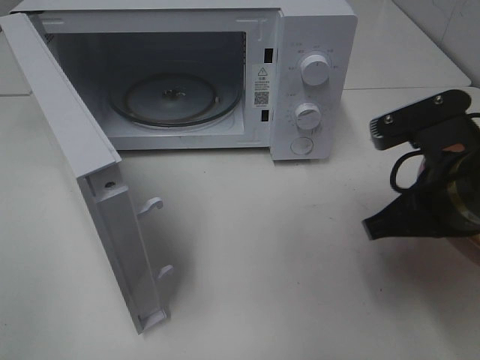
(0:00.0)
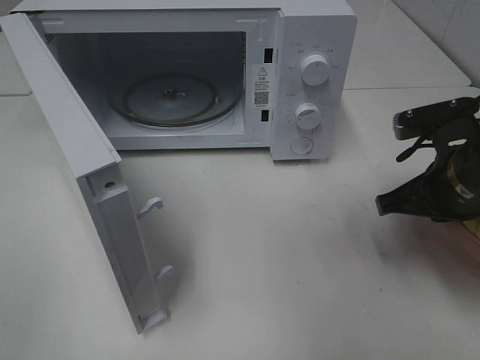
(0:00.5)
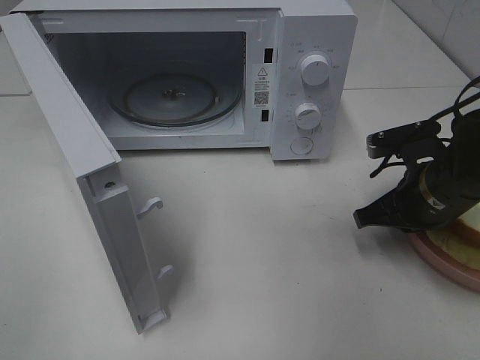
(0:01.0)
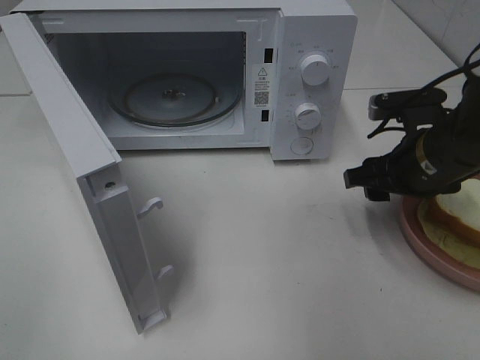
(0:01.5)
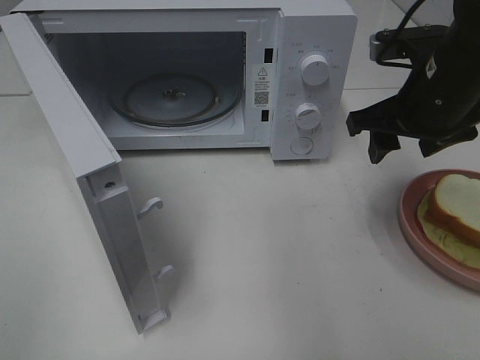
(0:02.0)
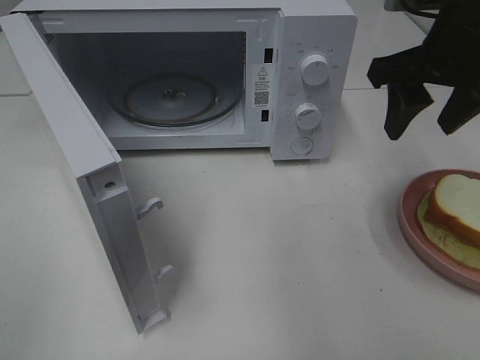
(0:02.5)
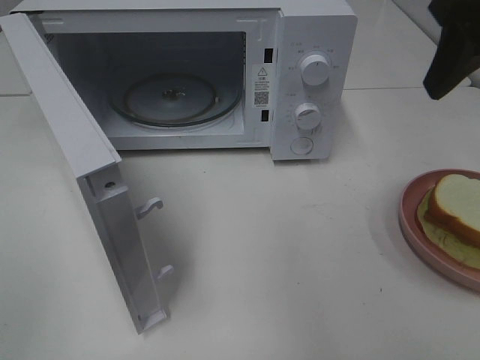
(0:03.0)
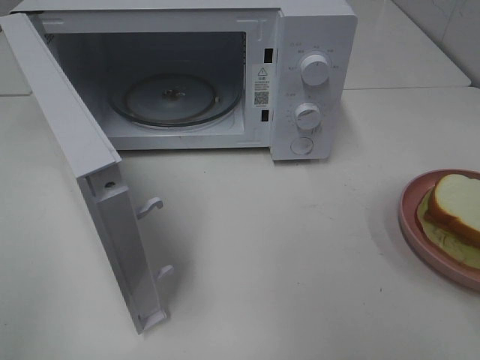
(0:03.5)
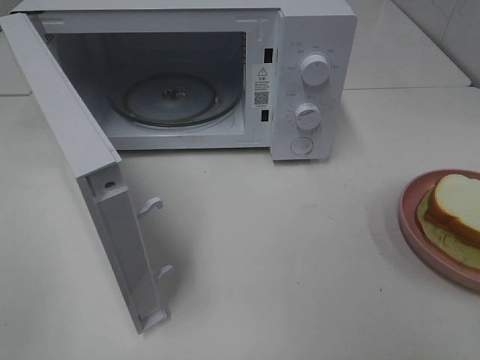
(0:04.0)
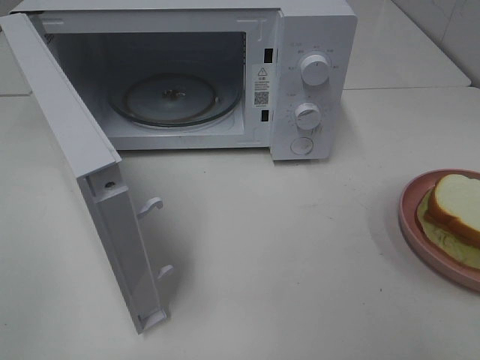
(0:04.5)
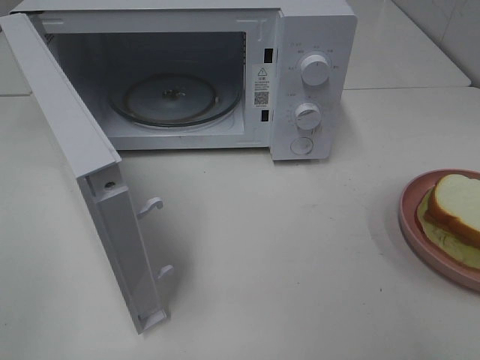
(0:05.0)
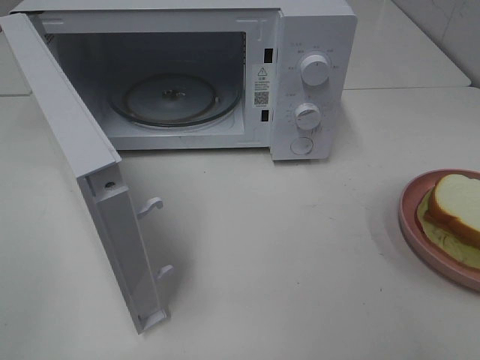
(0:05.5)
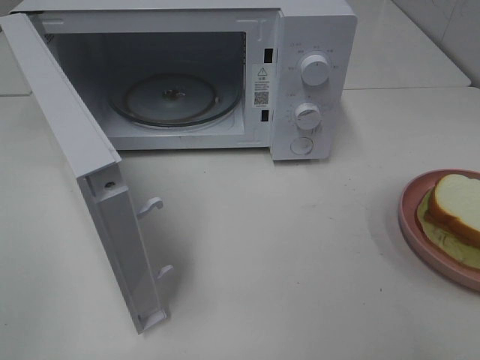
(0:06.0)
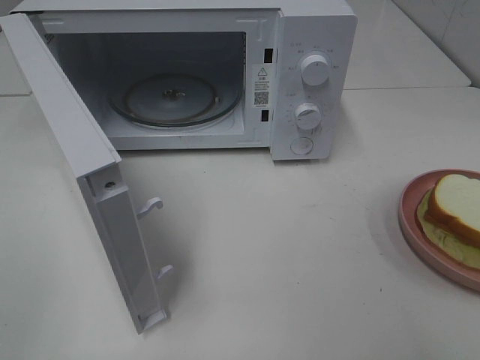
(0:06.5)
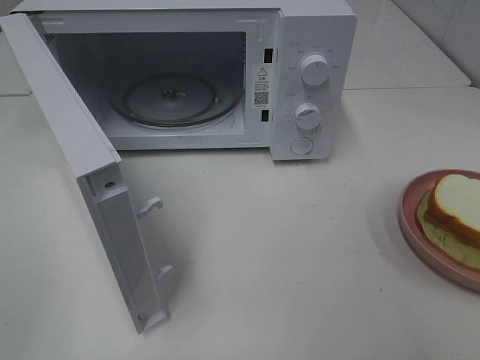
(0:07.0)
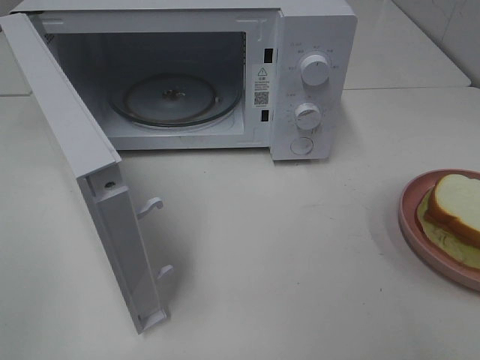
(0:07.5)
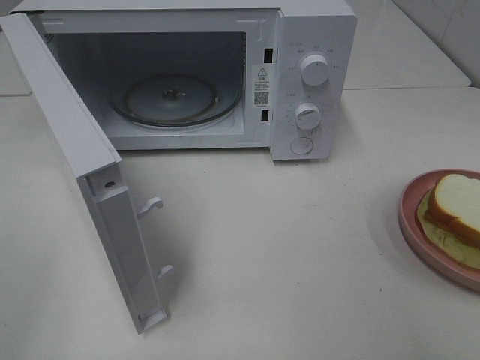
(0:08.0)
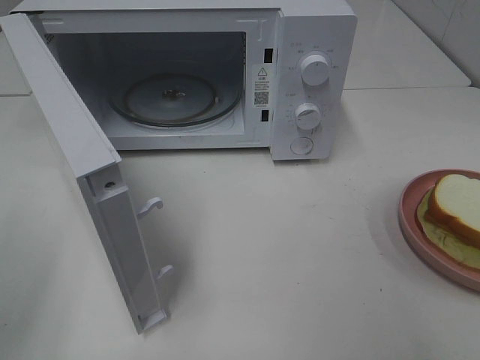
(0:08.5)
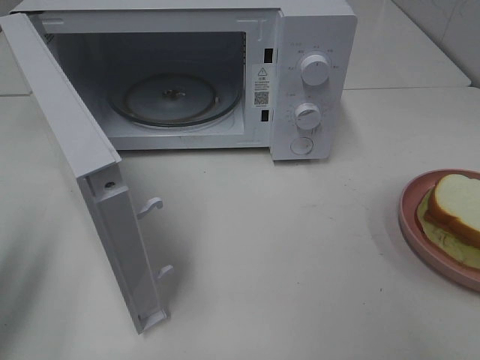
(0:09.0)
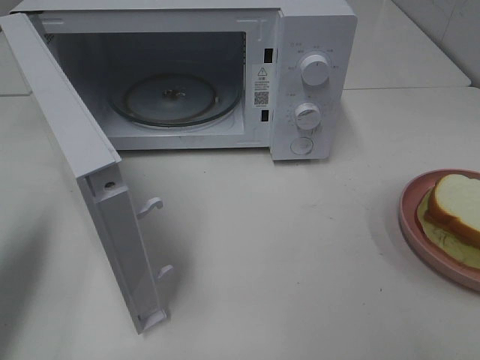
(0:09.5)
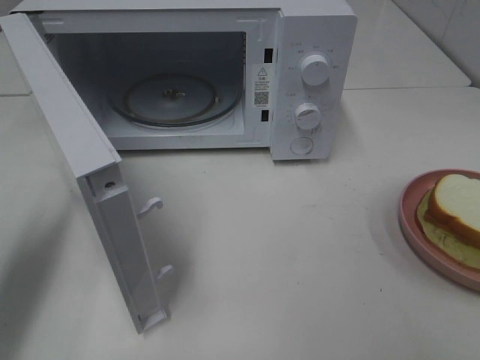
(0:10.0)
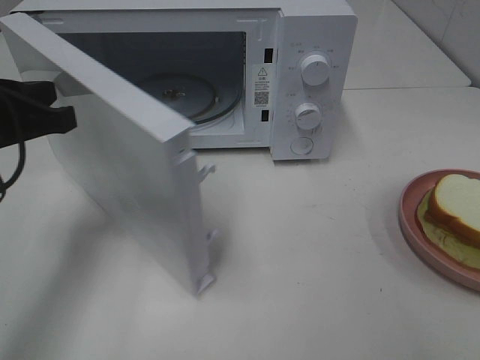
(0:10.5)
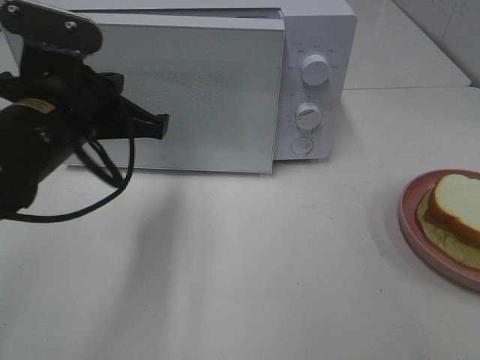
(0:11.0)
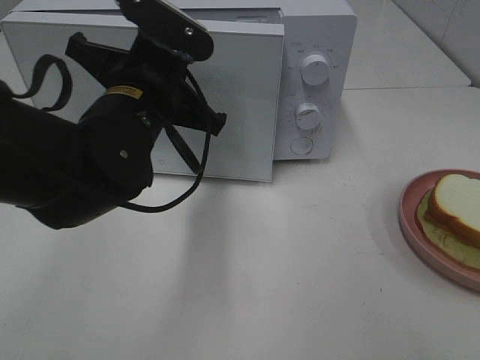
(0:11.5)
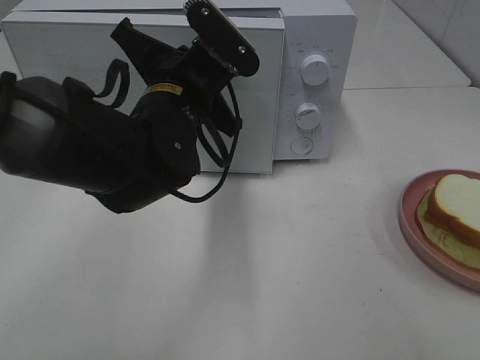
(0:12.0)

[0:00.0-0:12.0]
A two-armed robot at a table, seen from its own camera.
Task of the whole recording: Heat Sandwich.
Step, 0:00.0 to 0:02.0: Right hand: place the plate on the table.
0:00.0 to 0:02.0: The right gripper shifts roughly 10 cm forward, and opens.
0:02.0 to 0:04.0: The right gripper moves backward, approximately 25 cm.
0:08.0 to 0:10.0: The left gripper is displaced forward and downward by some 20 cm, and closes.
0:10.0 to 0:12.0: The left gripper goes some 25 cm to the right.

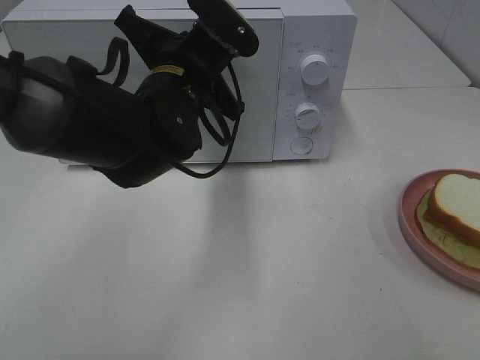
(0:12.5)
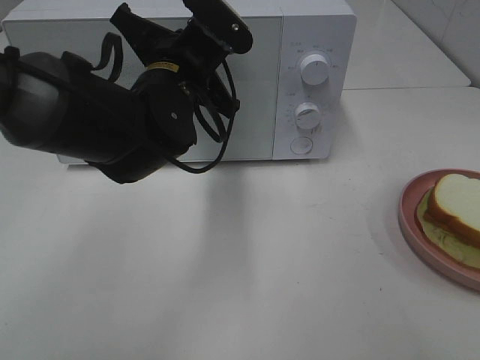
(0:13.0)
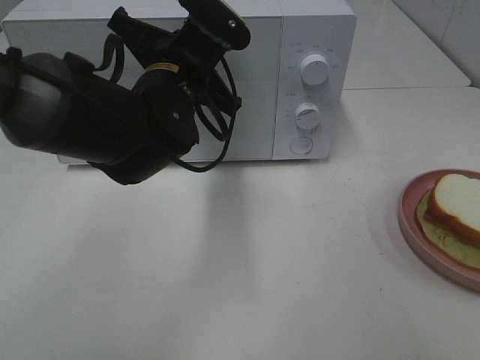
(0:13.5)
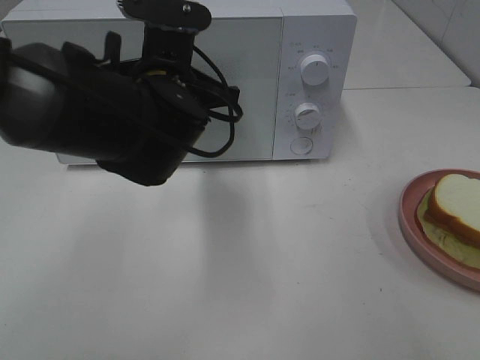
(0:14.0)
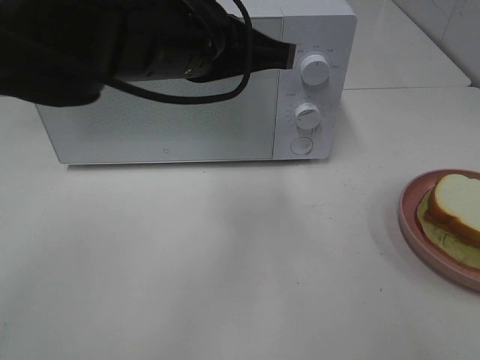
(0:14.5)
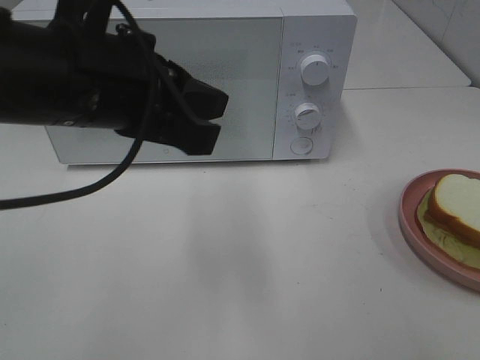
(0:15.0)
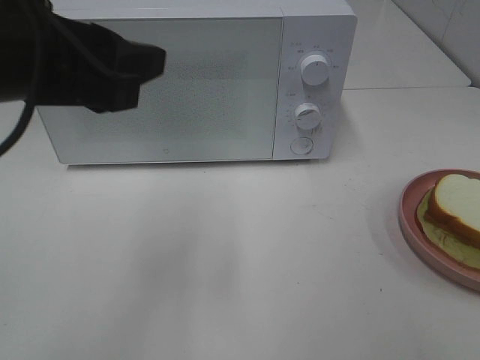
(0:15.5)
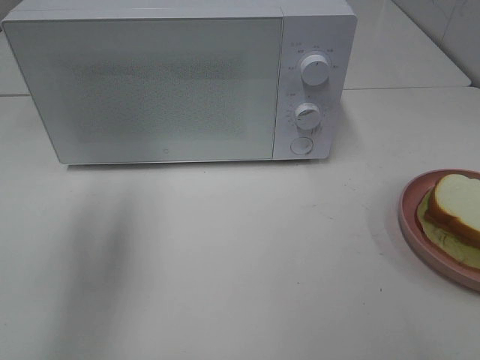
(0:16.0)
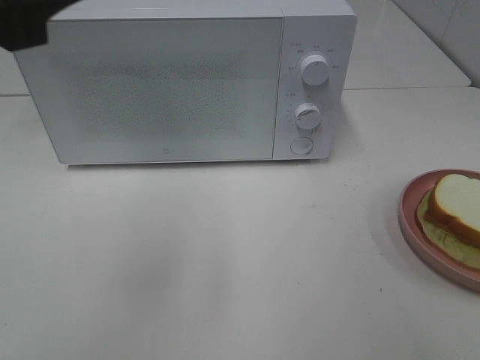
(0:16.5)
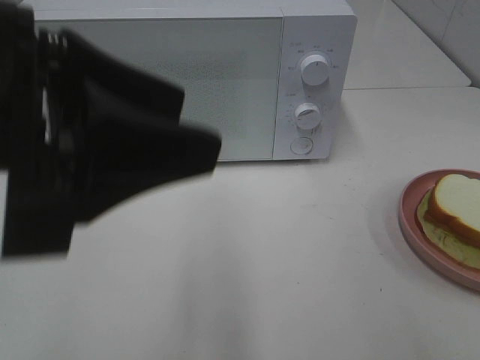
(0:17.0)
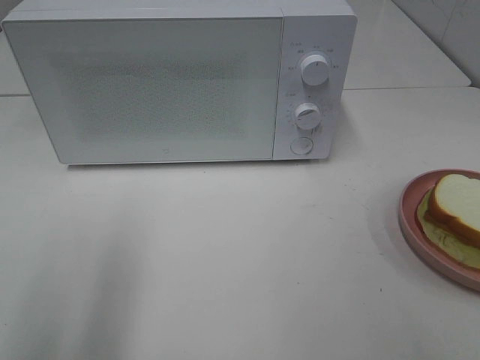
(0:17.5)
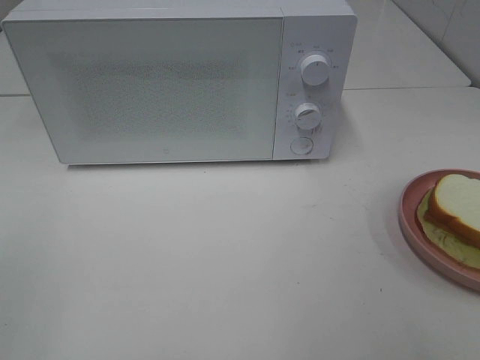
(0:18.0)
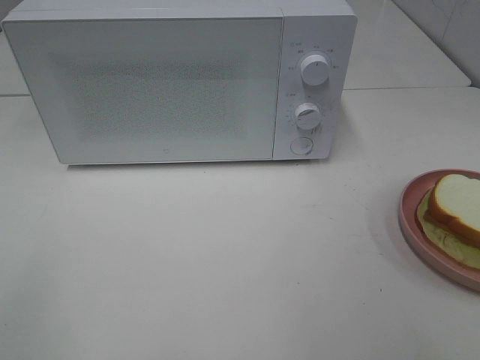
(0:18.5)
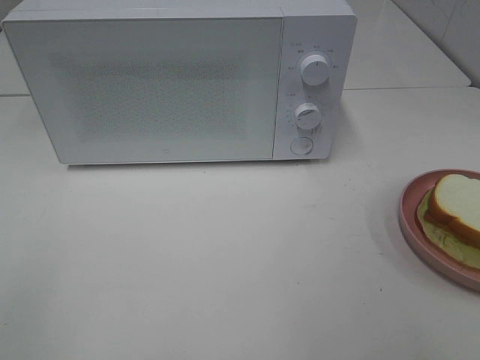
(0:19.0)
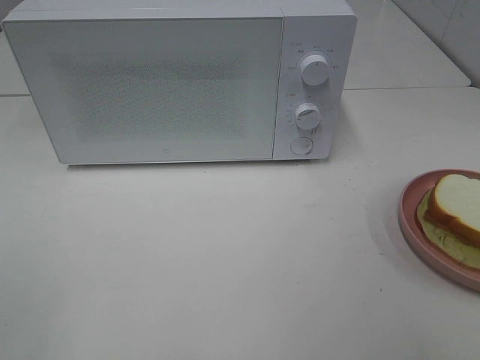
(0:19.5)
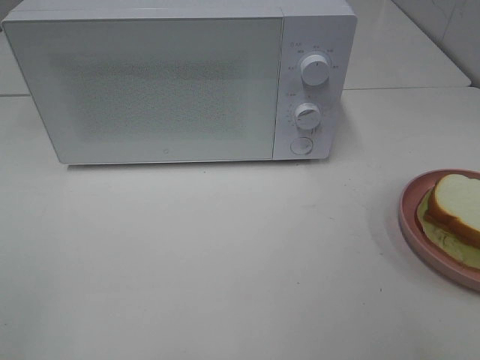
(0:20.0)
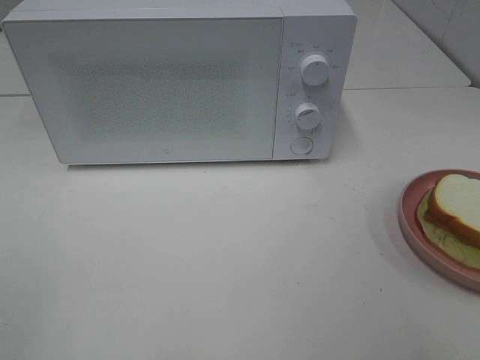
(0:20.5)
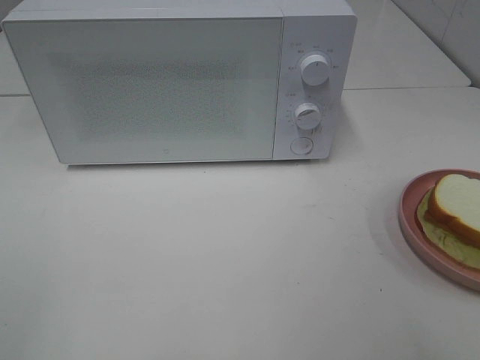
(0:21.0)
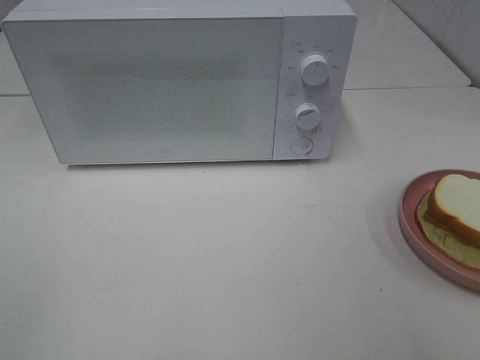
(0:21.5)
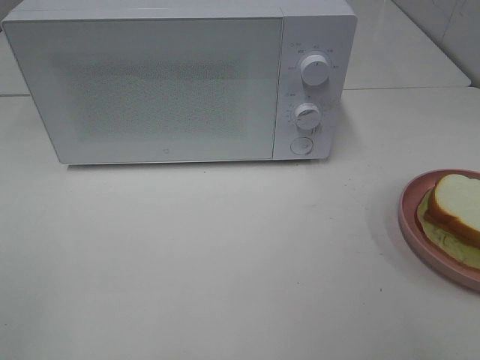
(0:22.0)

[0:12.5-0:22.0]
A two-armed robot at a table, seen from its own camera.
Task of the whole recording: Heat Sandwich.
Step, 0:12.5 to 0:14.5: Left hand: close the microwave door.
0:12.5 to 0:14.5: The left gripper shifts about 10 cm upward and backward.
0:14.5 to 0:16.5: The left gripper shifts some 20 cm to the left, backward and upward, and opens its fingers.
0:16.5 to 0:18.0: The left gripper heads to the left and backward, covering approximately 20 cm.
0:20.0 to 0:22.0: The two grippers keep their place.

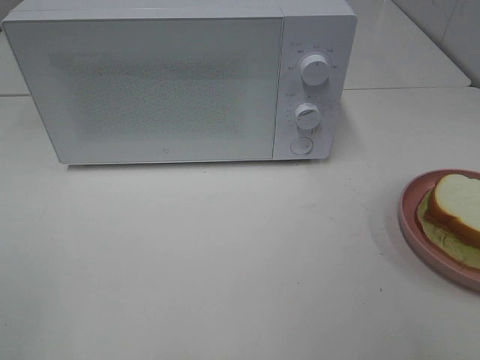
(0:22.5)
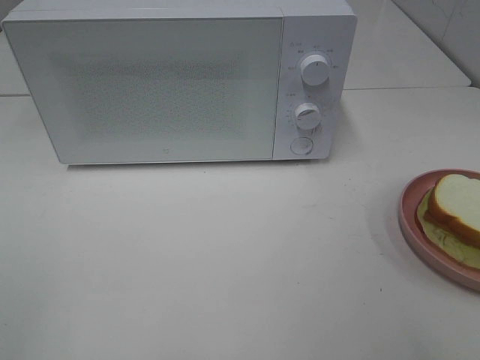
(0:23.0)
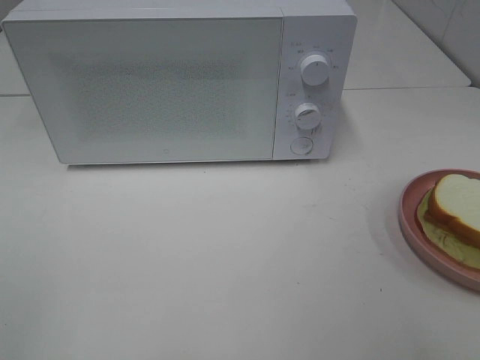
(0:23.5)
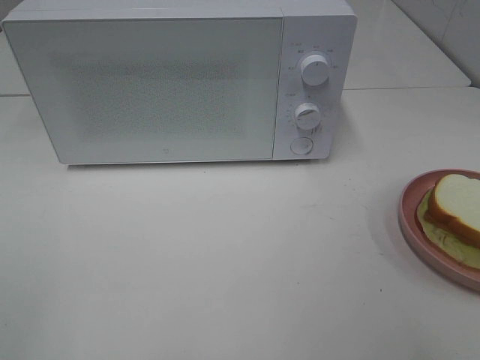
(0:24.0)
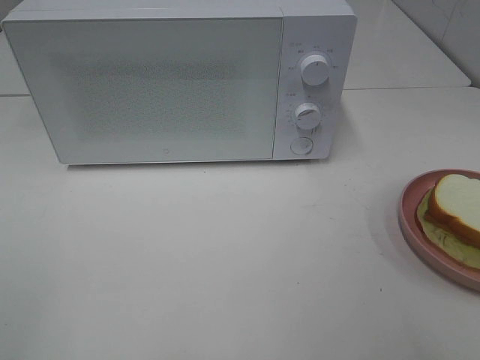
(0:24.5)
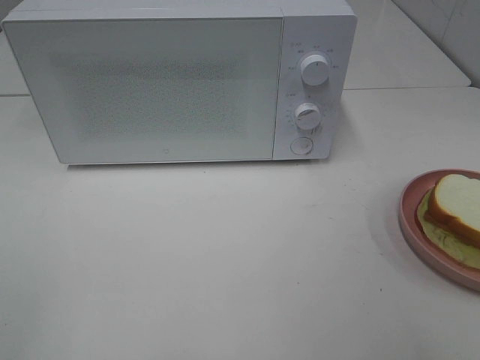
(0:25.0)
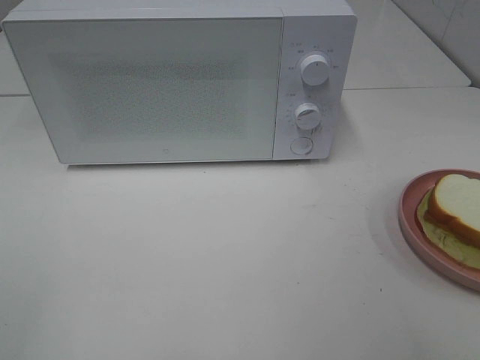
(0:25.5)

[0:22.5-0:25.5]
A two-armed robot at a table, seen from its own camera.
Task of the whole recording: Heat Sandwich.
0:22.5 to 0:25.5: Both grippers stay put.
